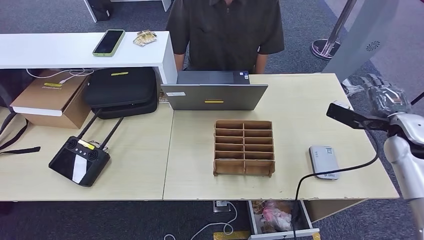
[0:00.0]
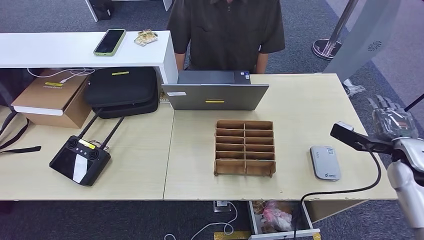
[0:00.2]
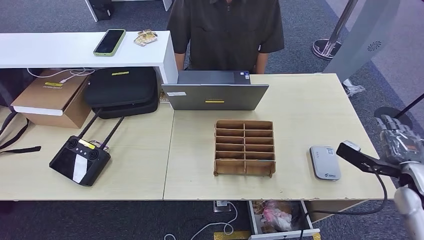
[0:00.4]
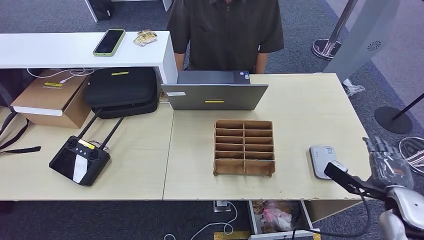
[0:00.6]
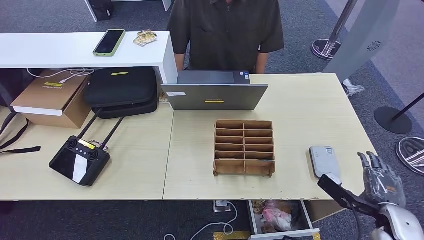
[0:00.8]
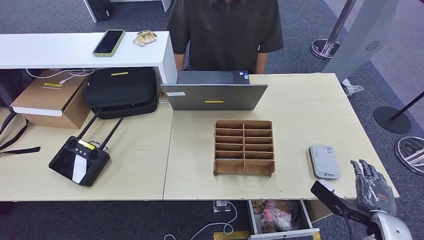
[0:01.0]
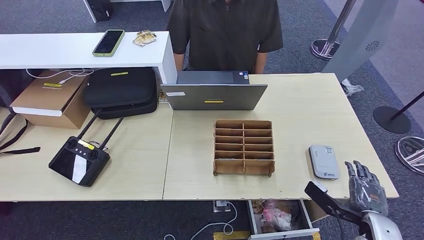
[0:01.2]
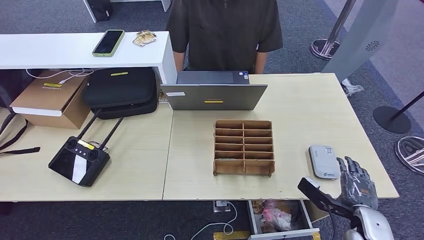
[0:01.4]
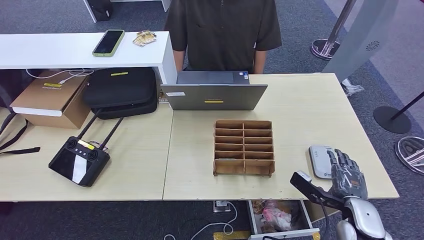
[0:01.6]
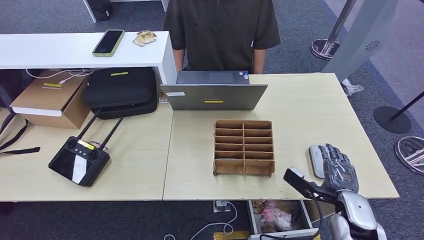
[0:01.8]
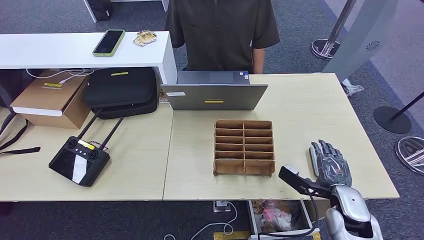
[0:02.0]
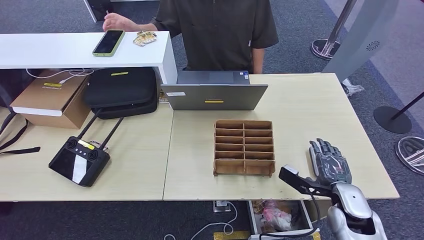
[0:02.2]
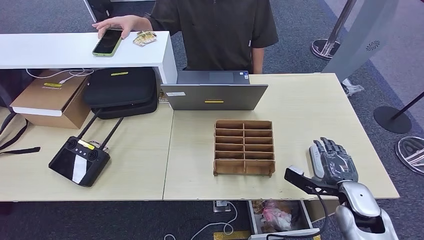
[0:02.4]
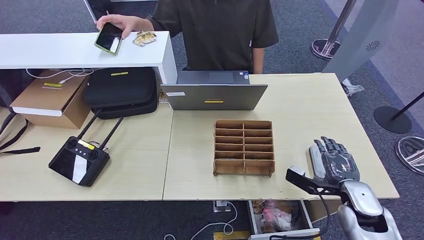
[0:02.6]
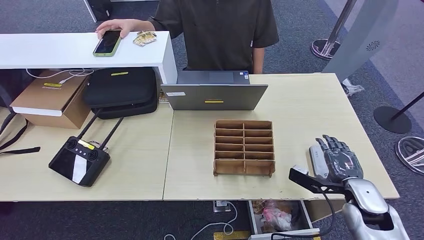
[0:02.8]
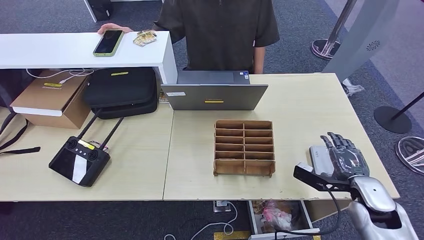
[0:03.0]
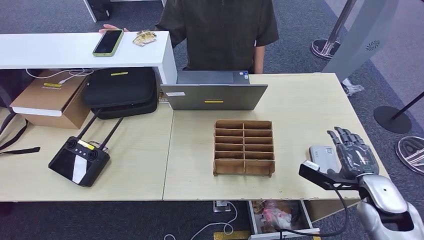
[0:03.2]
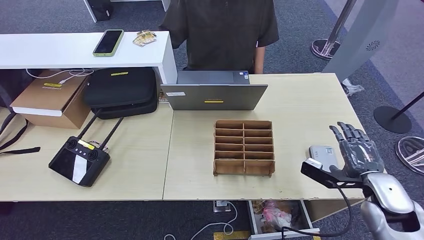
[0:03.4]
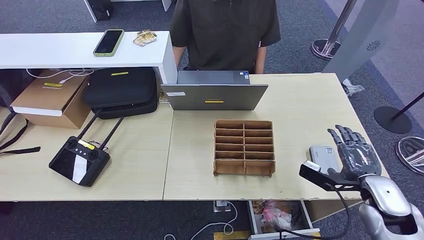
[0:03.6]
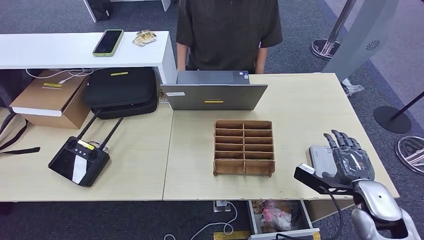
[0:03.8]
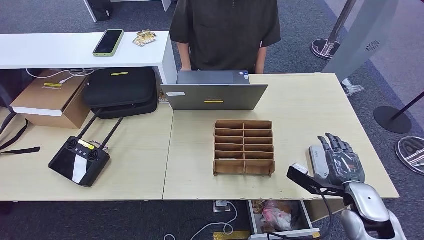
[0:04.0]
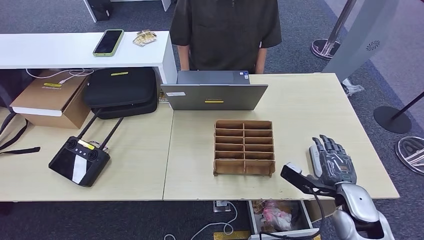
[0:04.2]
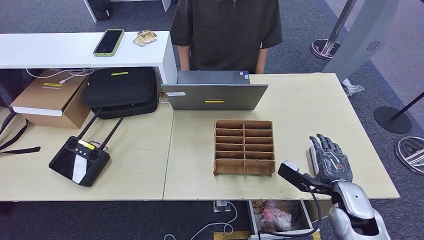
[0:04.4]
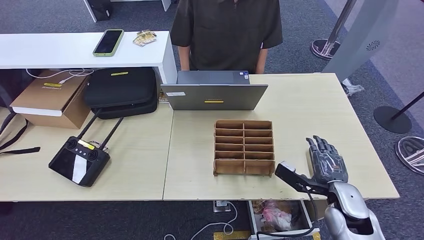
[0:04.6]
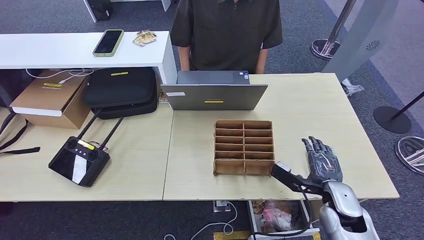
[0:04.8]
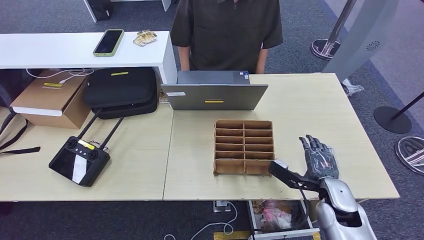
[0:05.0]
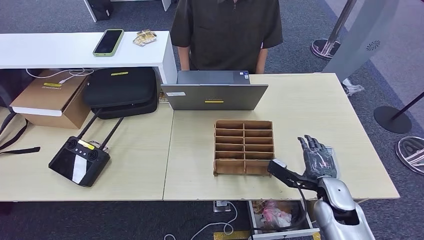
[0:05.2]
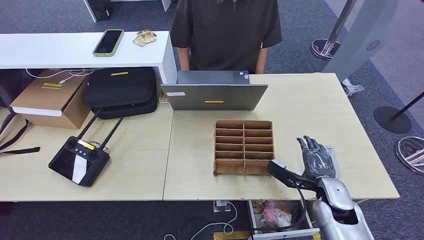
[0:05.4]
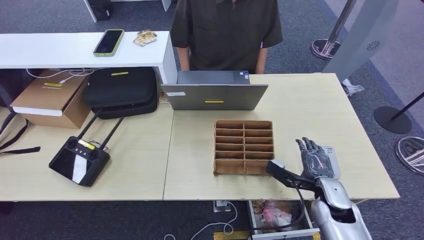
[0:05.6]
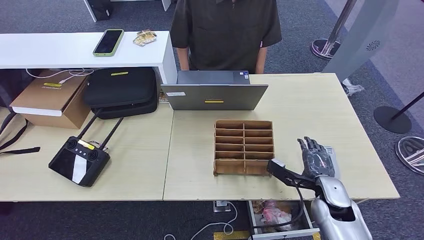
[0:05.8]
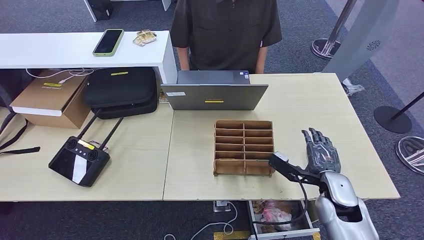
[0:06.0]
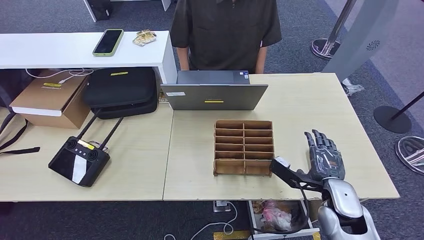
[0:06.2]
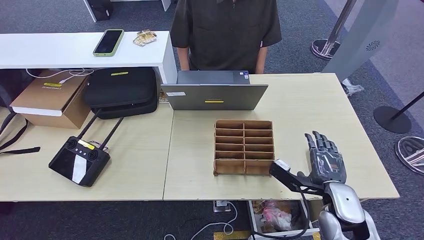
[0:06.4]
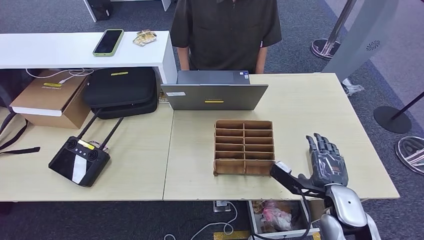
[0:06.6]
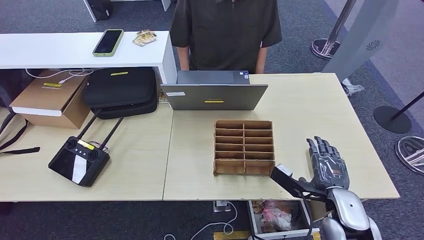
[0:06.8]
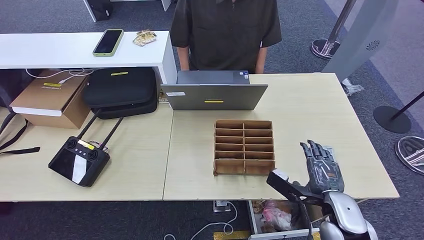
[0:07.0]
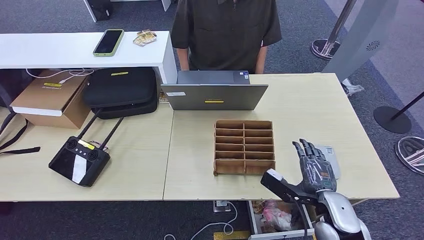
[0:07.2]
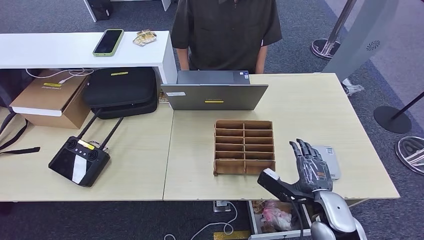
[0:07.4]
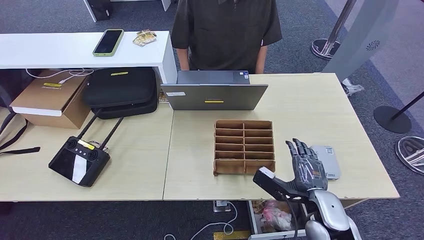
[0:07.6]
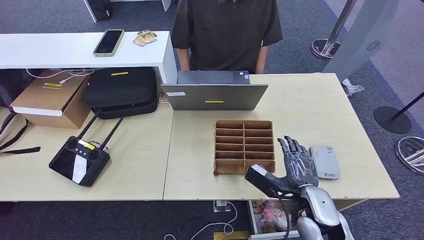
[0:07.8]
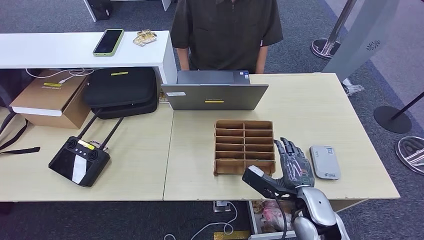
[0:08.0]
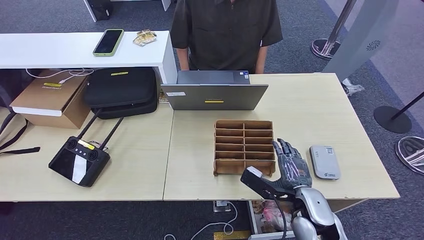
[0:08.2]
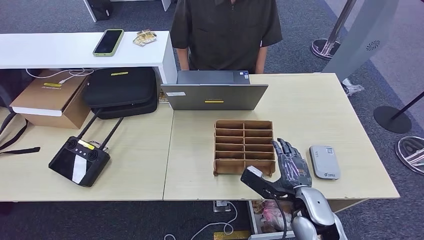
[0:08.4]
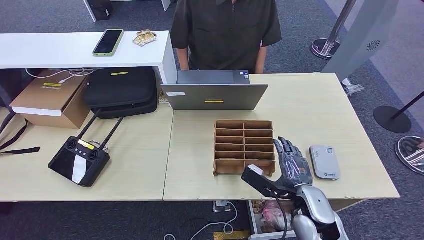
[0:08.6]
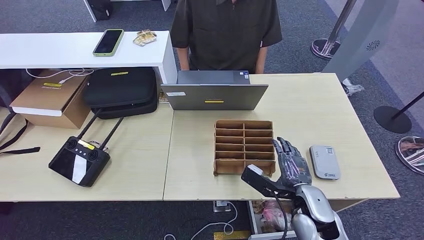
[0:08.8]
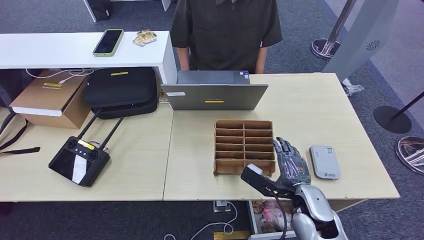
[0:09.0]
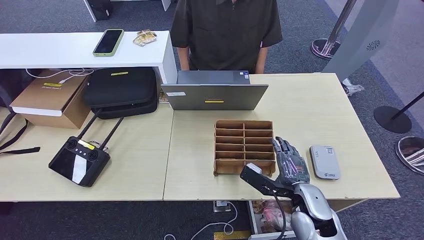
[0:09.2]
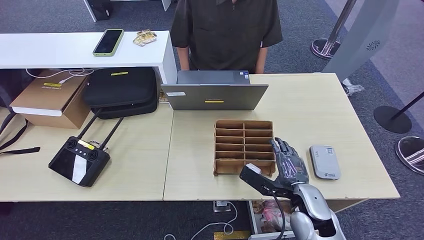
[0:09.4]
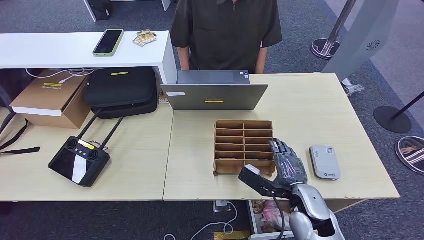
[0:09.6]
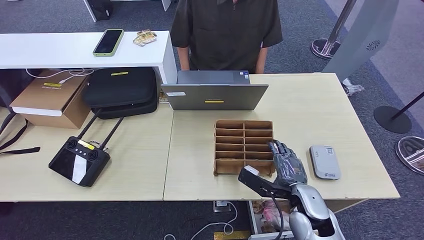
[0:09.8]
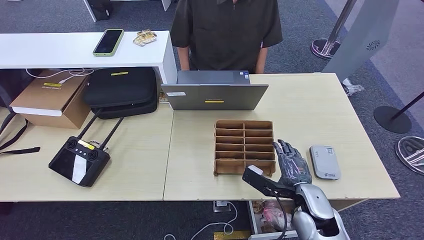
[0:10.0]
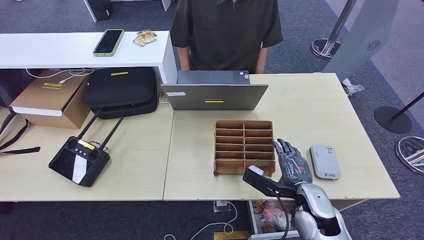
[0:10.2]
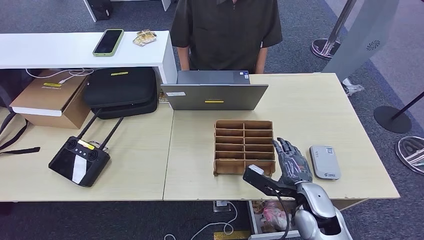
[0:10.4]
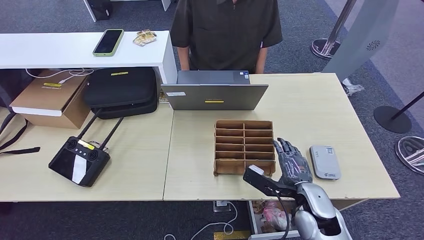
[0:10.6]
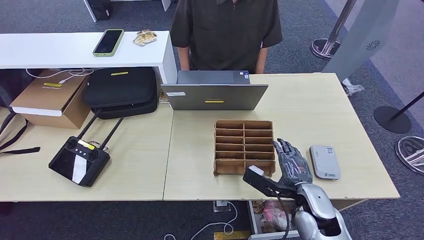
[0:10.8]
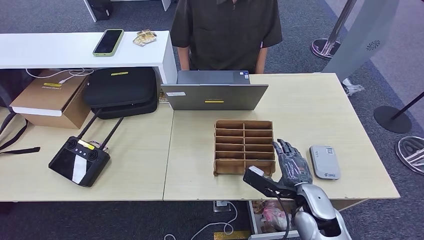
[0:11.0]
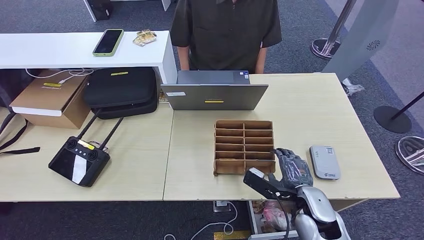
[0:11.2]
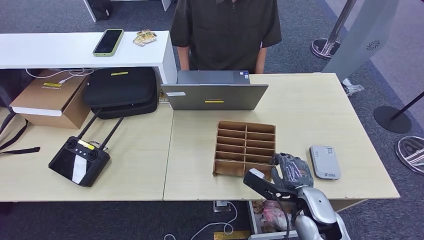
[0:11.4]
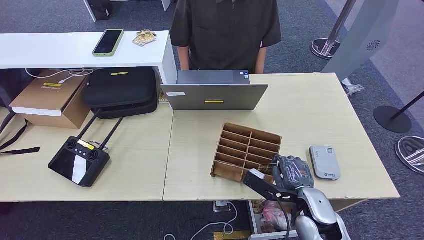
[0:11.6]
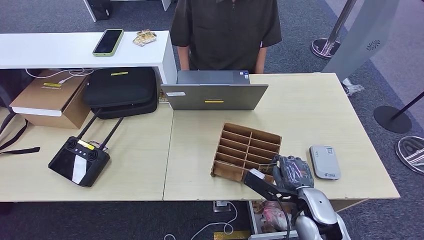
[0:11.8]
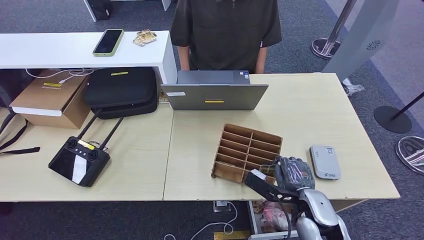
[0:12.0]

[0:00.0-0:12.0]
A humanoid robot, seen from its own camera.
0:00.0 to 0:01.6: The right hand goes approximately 25 cm backward, downward and to the left.
0:01.6 to 0:03.0: The right hand shifts by approximately 5 cm.
0:03.0 to 0:04.4: The right hand heads to the left, covering about 5 cm.
0:04.4 to 0:06.0: The hands make only small movements.
0:06.0 to 0:07.6: The right hand travels backward by some 5 cm.
0:07.6 to 0:09.0: The hands move only a little.
0:09.0 to 0:10.4: Both hands stay put.
0:10.4 to 0:12.0: The hands move only a little.

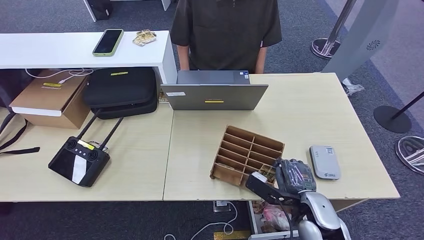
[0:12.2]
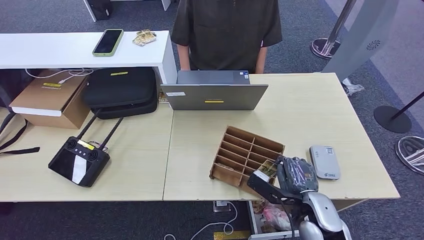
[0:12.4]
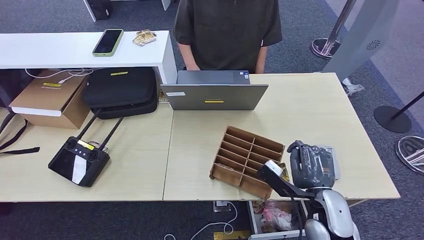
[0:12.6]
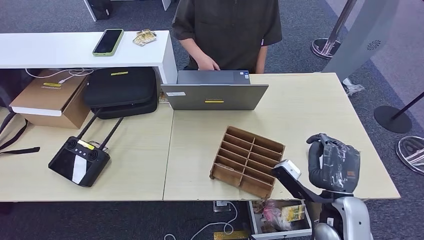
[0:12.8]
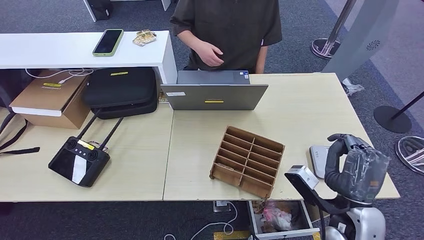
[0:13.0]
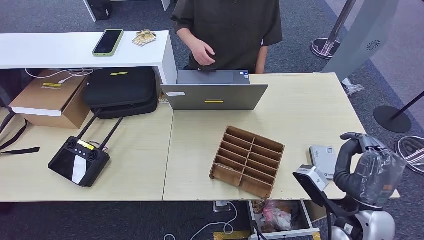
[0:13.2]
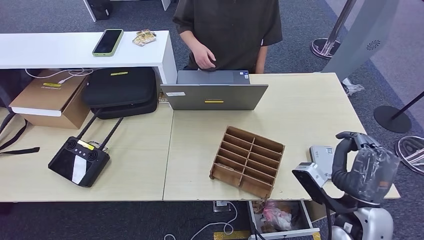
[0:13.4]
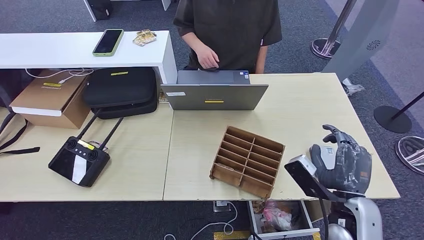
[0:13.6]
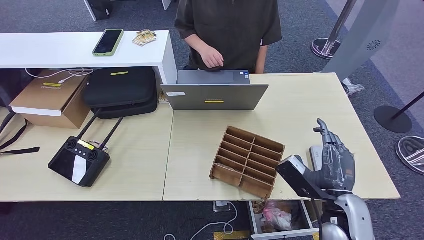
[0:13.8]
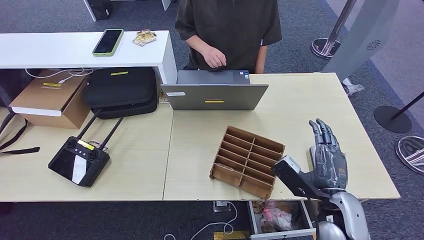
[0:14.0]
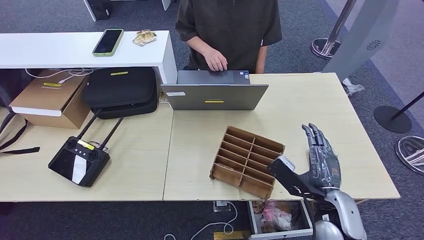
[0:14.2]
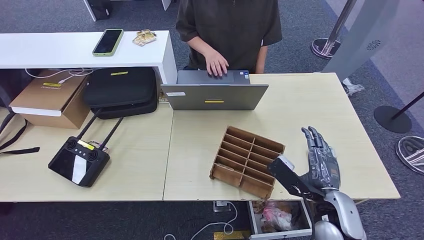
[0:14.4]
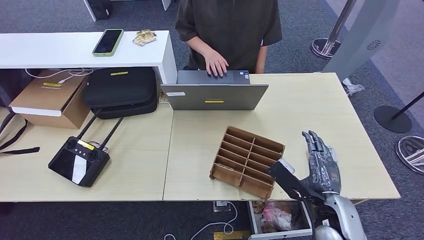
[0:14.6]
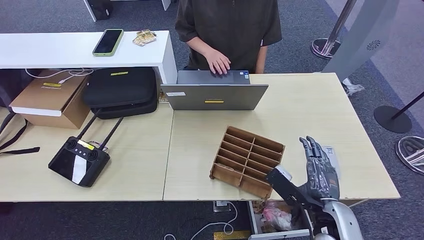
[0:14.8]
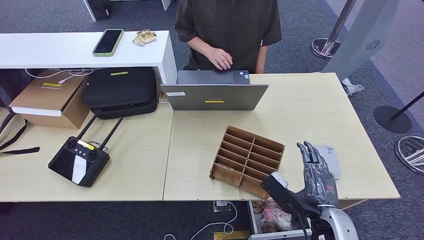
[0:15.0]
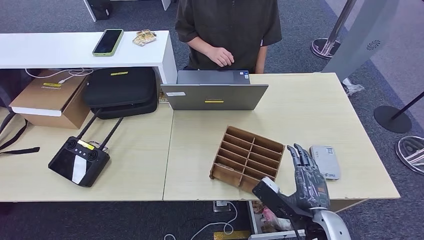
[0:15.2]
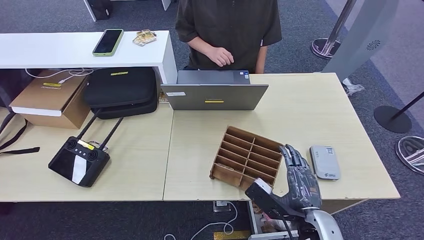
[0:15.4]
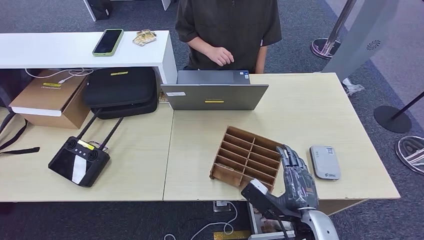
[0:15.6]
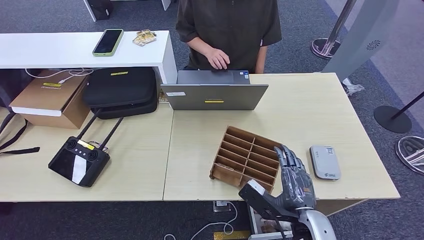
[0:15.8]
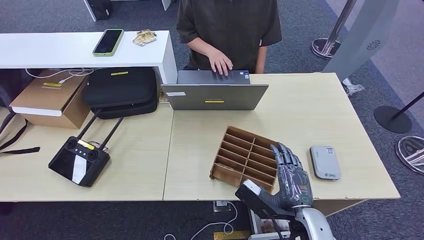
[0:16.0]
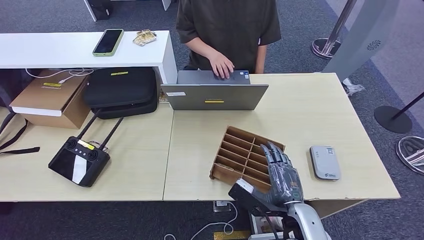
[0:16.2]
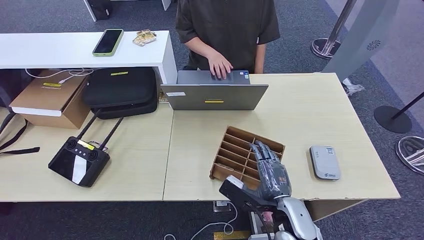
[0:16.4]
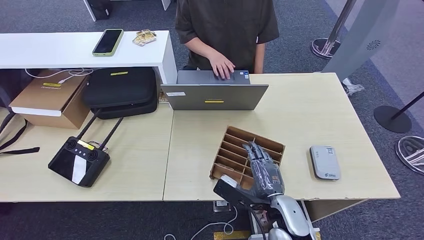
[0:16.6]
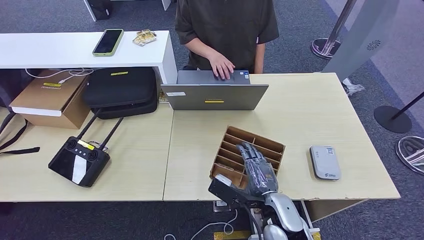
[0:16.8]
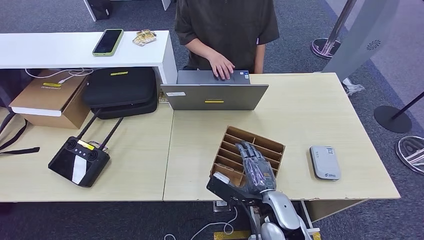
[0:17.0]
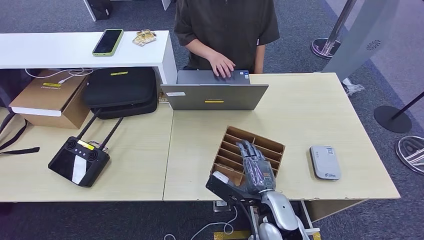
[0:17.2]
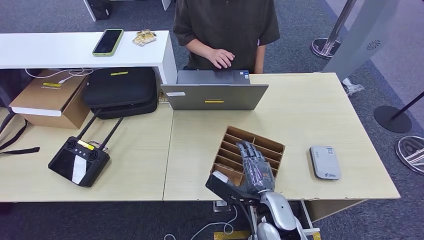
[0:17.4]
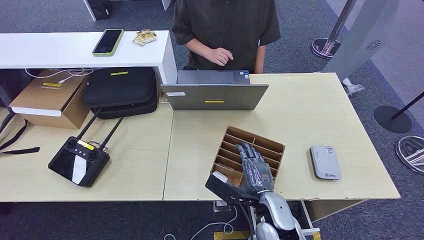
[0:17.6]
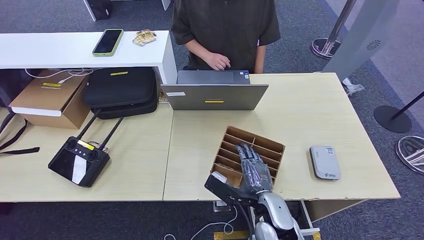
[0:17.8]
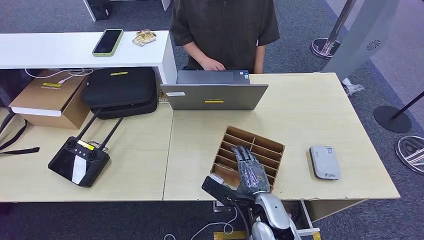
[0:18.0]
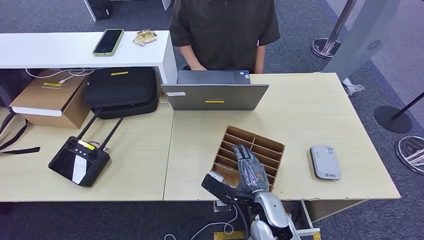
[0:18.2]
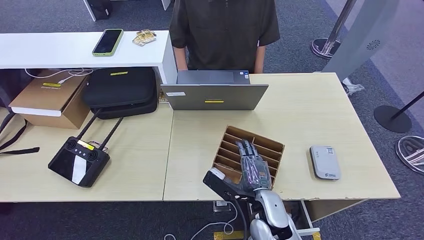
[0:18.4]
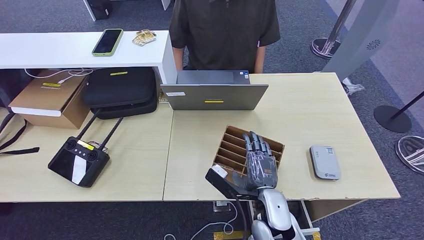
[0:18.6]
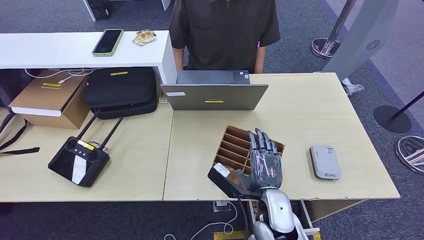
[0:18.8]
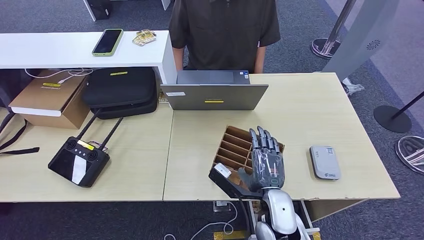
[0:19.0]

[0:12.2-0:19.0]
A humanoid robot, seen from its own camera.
0:12.2 to 0:13.6: The right hand moves upward, some 5 cm.
0:13.6 to 0:15.0: The right hand ends up roughly 5 cm from where it was.
0:15.0 to 0:16.2: The right hand goes approximately 5 cm to the left.
0:16.2 to 0:17.6: The right hand moves to the left, roughly 5 cm.
0:17.6 to 0:19.0: The hands make only small movements.
